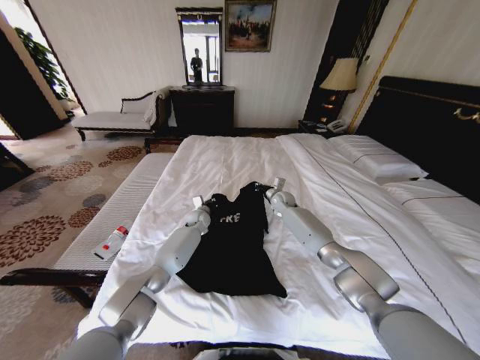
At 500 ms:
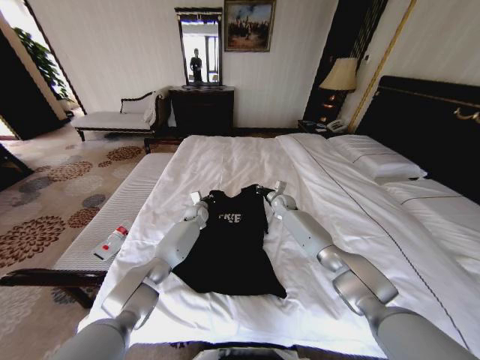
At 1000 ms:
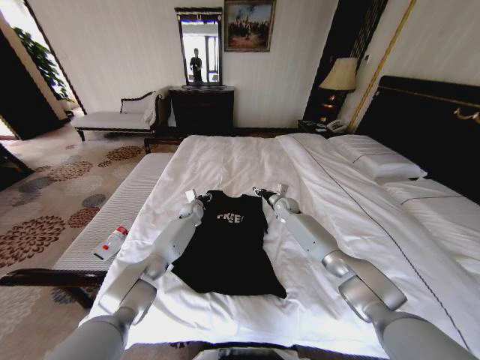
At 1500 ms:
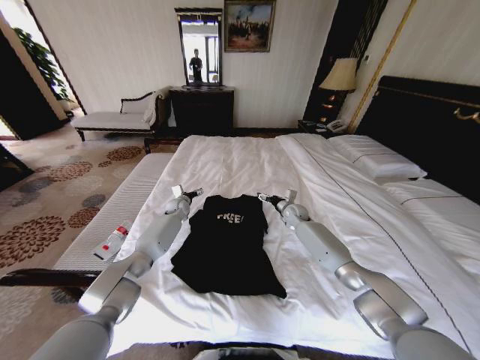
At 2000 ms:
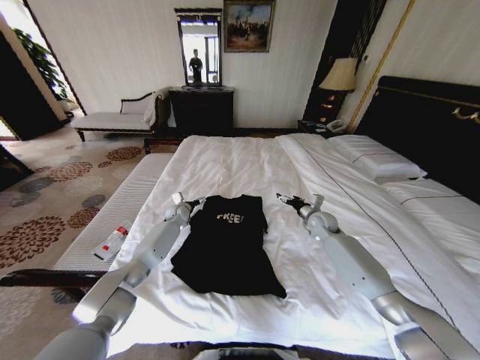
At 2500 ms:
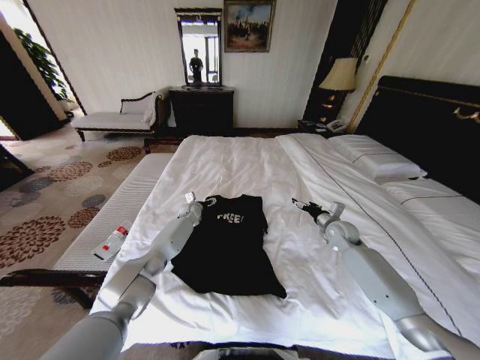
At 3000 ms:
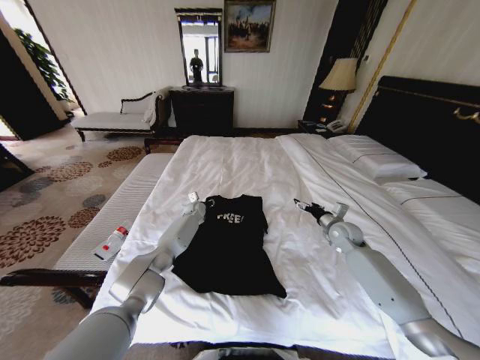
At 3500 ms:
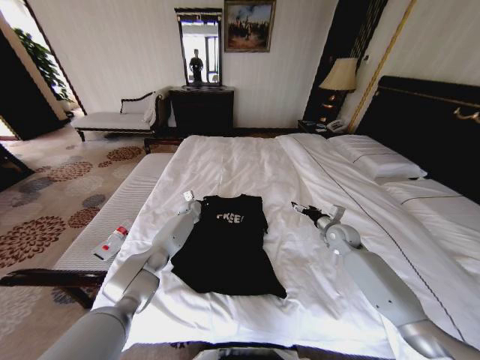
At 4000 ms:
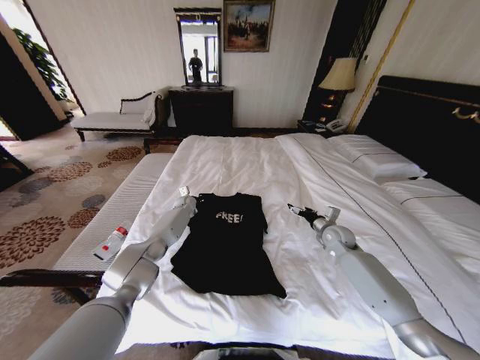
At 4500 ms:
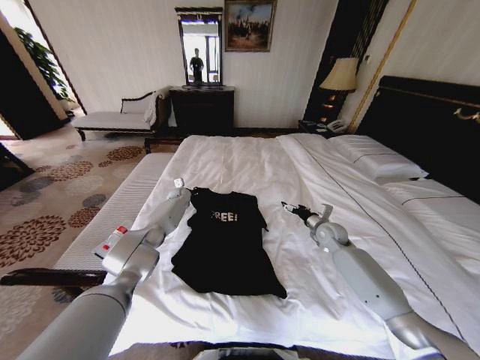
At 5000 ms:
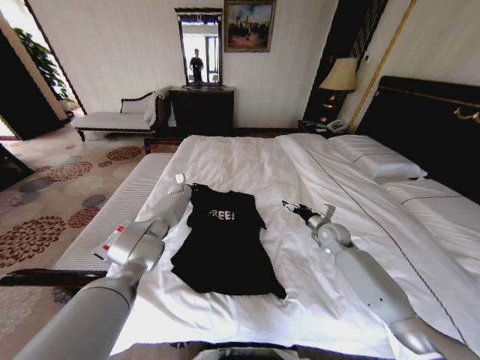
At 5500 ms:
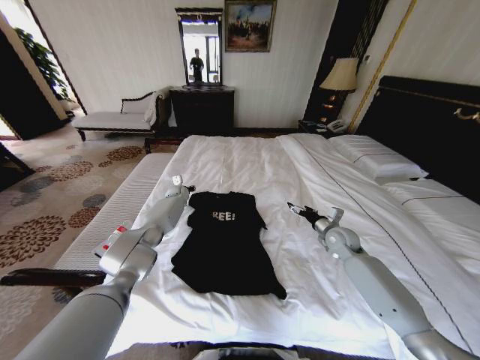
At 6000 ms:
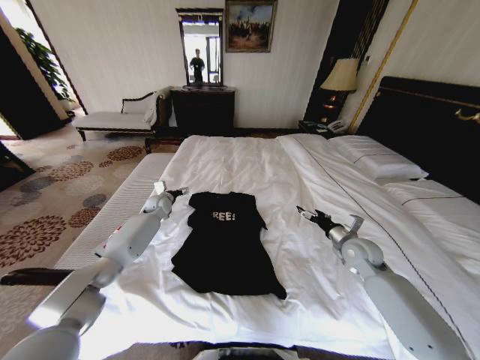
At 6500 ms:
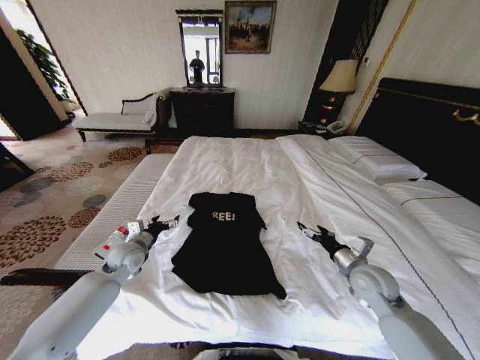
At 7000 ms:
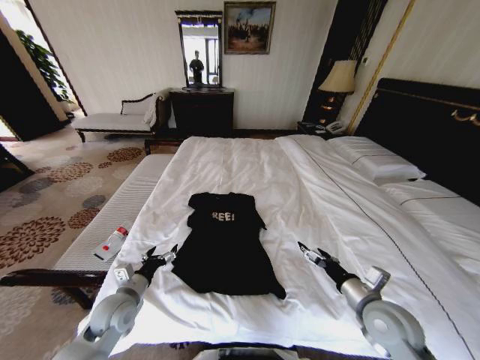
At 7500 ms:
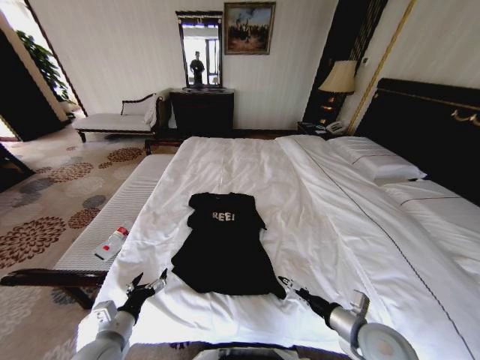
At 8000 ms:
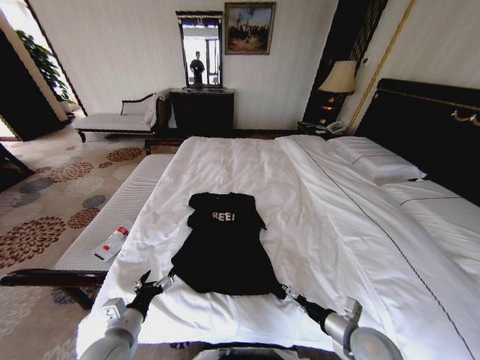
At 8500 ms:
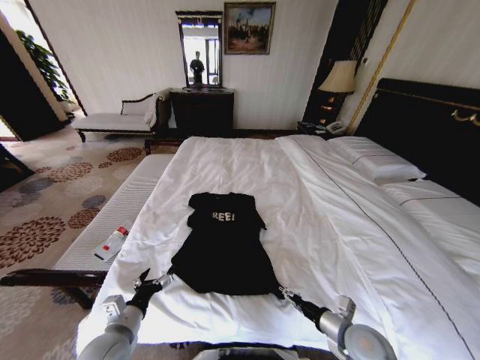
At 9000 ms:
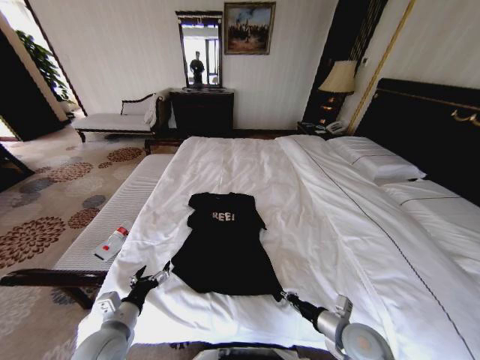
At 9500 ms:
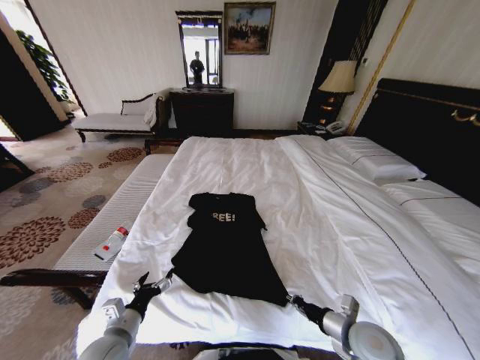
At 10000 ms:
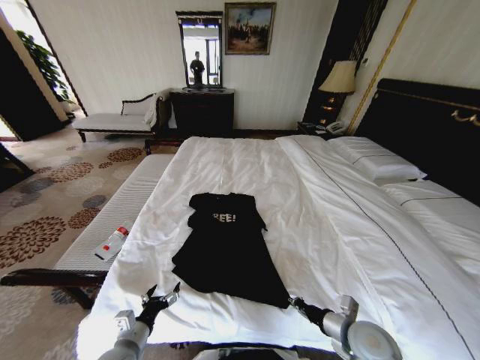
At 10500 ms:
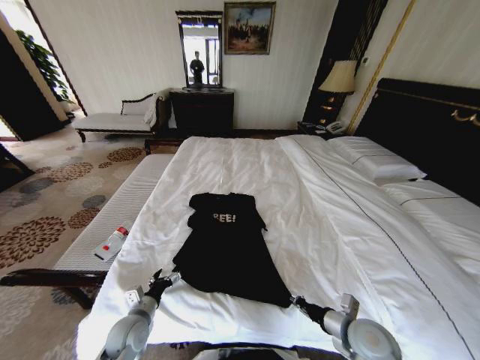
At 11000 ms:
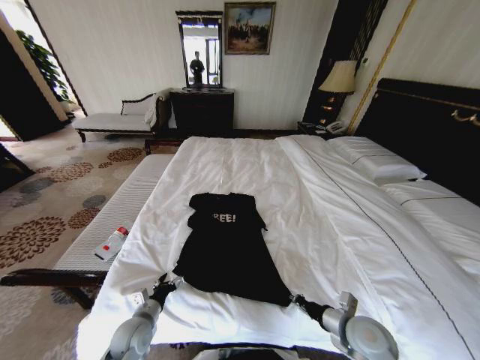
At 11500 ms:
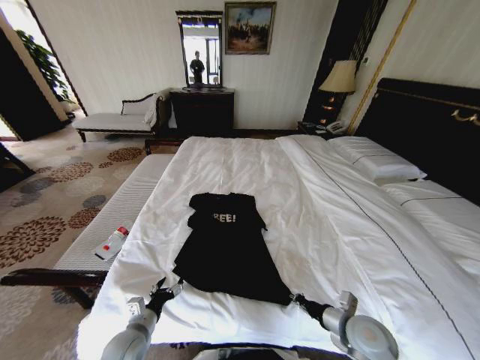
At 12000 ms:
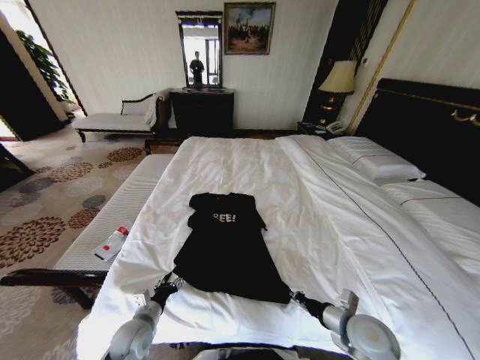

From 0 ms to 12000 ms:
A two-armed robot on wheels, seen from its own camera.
Task of the whole recording: Fold the clothes on the bed.
From 0 ms to 2000 ms: The left gripper is displaced to the left by approximately 10 cm, and opens up; the right gripper goes approximately 15 cm backward and to the right, and opens up.
From 2000 ms to 4000 ms: The left gripper goes some 5 cm forward, and closes its fingers, while the right gripper shifts by approximately 5 cm.
From 4000 ms to 6000 ms: The right gripper shifts roughly 10 cm backward. The left gripper is displaced to the left, upward and backward by about 10 cm, and opens up.
From 6000 ms to 8000 ms: The right gripper is displaced backward by some 20 cm, while the left gripper goes approximately 40 cm backward.
From 8000 ms to 10000 ms: The right gripper closes its fingers. The left gripper shifts by roughly 5 cm.
From 10000 ms to 12000 ms: The left gripper is displaced forward by roughly 5 cm, and closes up.

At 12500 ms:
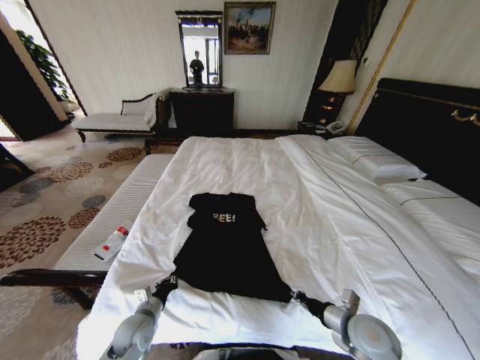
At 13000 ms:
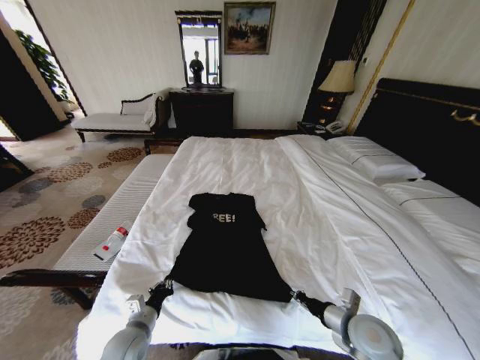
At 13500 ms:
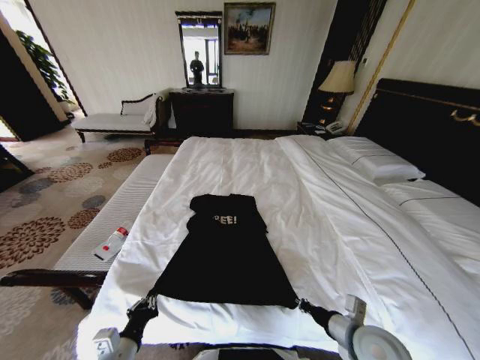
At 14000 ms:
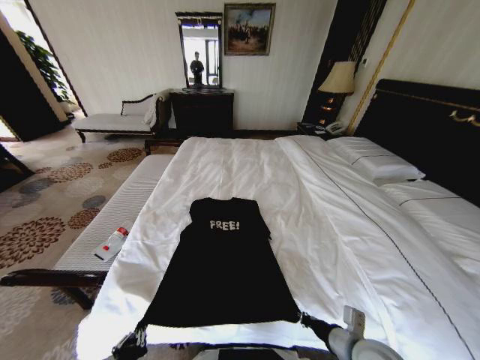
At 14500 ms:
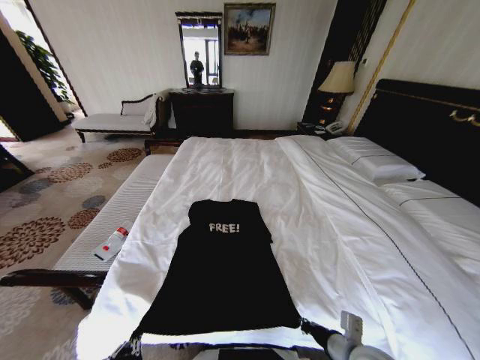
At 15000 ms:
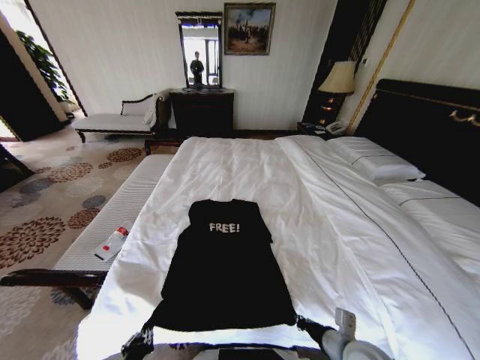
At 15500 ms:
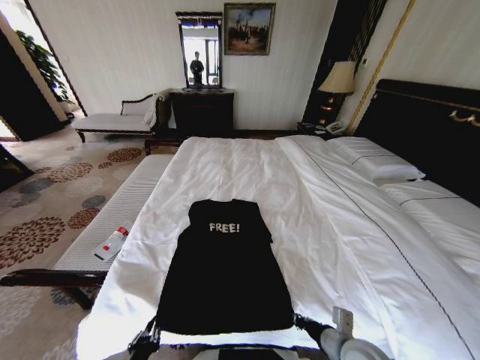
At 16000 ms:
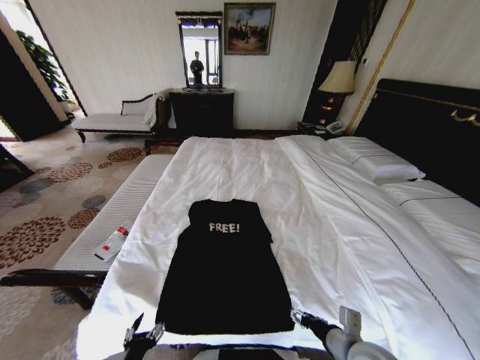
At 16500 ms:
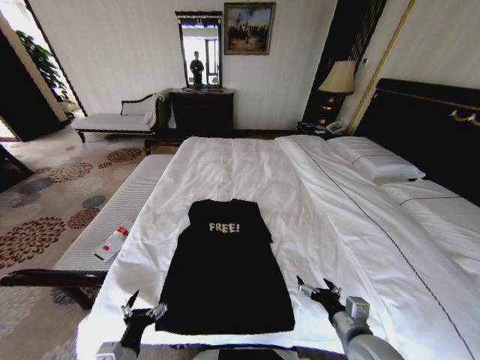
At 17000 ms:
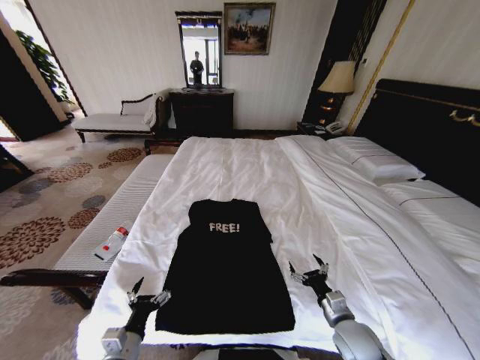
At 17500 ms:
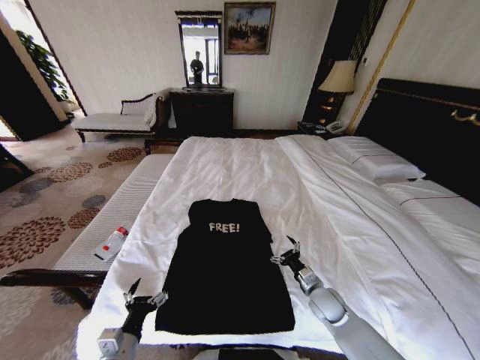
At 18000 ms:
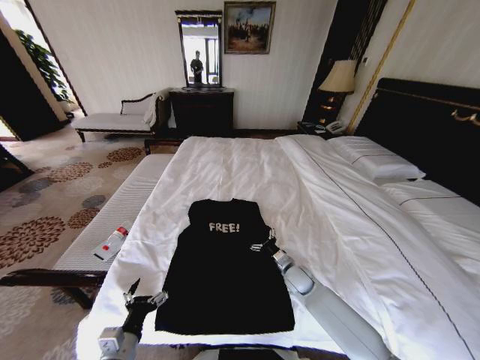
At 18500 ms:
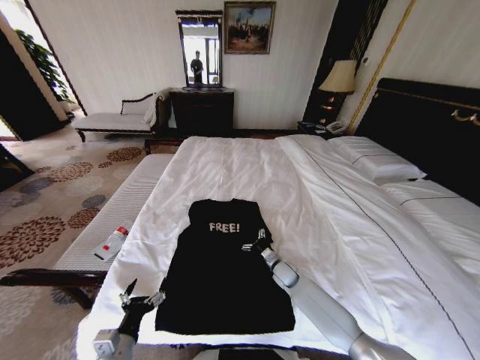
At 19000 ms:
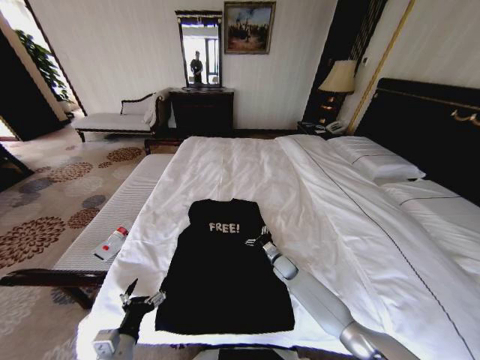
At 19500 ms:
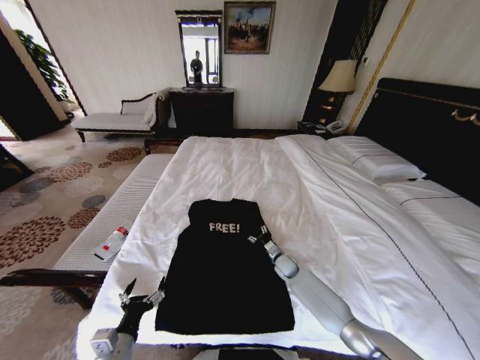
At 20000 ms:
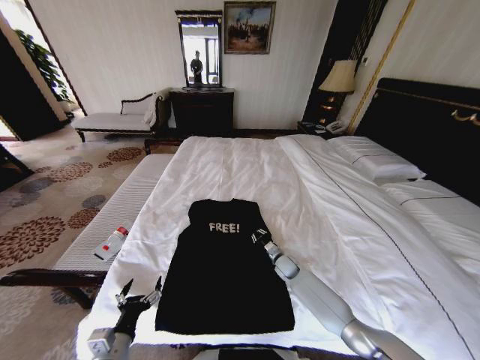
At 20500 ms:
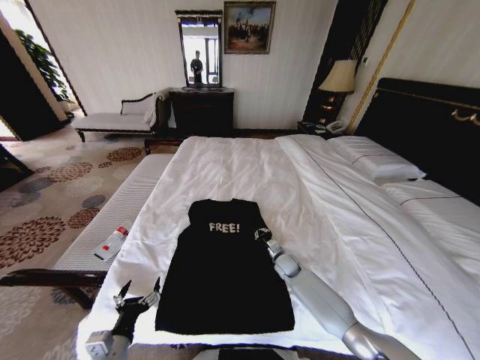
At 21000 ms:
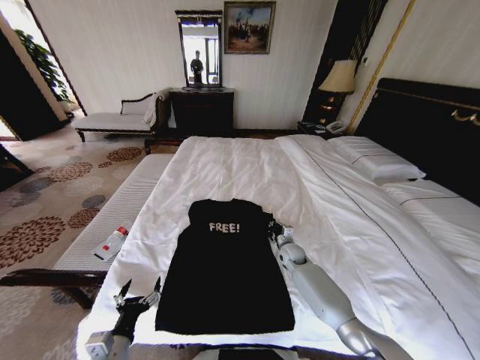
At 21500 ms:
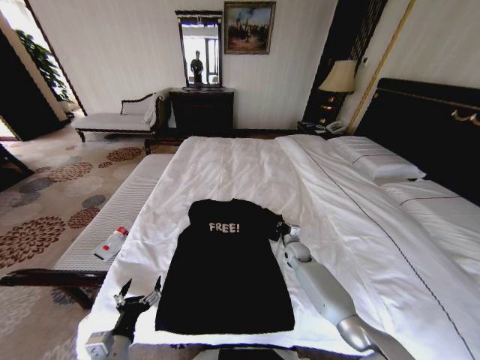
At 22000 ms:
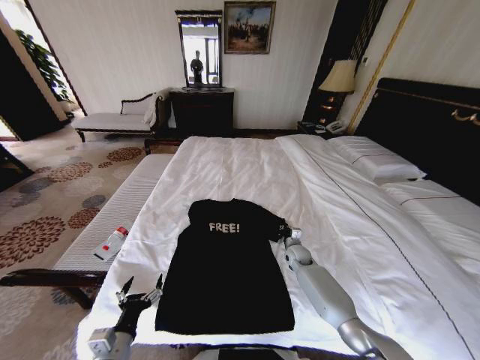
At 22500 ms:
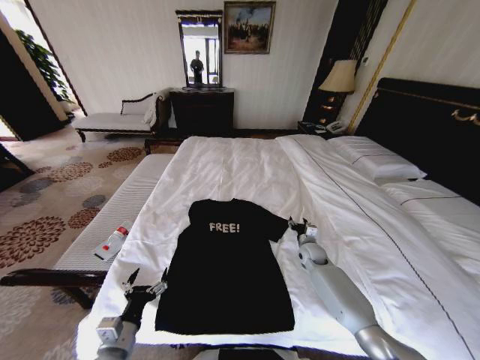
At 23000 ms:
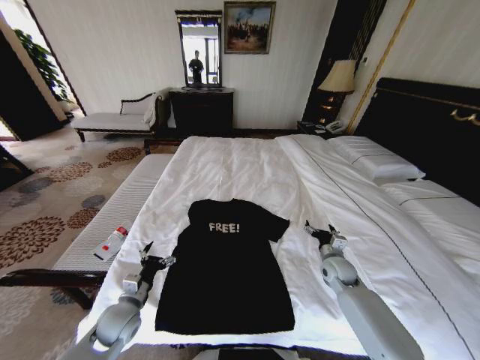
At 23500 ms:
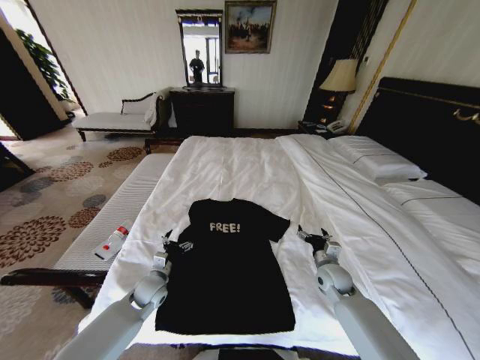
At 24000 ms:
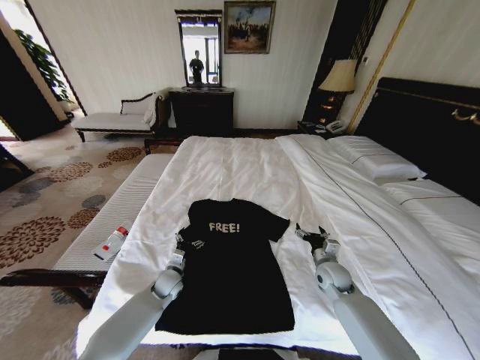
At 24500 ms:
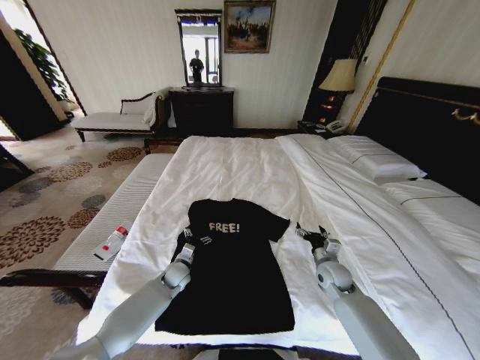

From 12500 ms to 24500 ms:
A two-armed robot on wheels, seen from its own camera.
Task of the whole recording: Fold the clothes on the bed.
From 12500 ms to 14500 ms: The right gripper heads backward, covering about 5 cm. The left gripper shifts roughly 20 cm backward.
From 14500 ms to 16500 ms: The left gripper is displaced forward by some 5 cm, and opens; the right gripper opens.
From 16500 ms to 18500 ms: The right gripper moves forward and downward, roughly 30 cm.
From 18500 ms to 20500 ms: The right gripper closes up.
From 20500 ms to 22500 ms: The right gripper travels to the right by roughly 10 cm, and opens.
From 22500 ms to 24500 ms: The left gripper is displaced forward and downward by about 30 cm, while the right gripper heads backward, covering about 10 cm, and opens.

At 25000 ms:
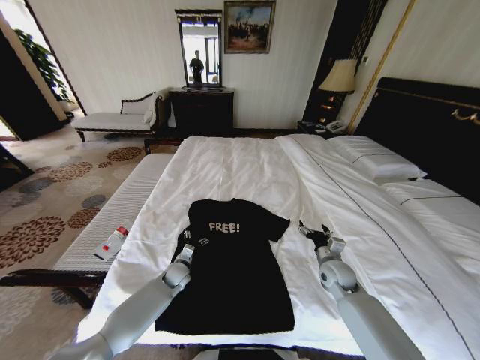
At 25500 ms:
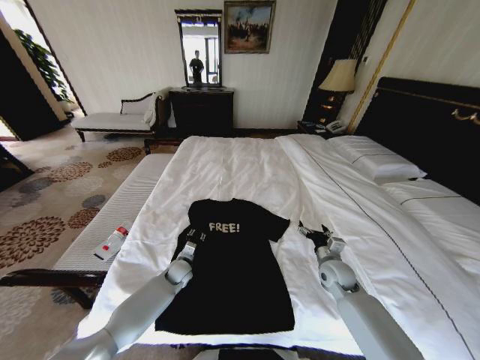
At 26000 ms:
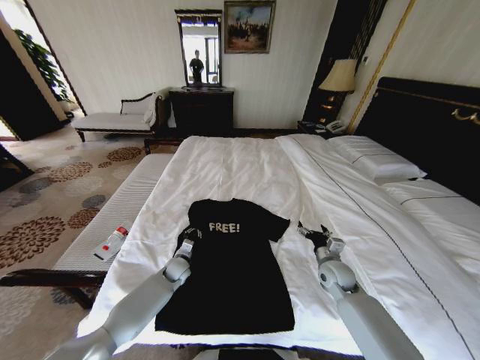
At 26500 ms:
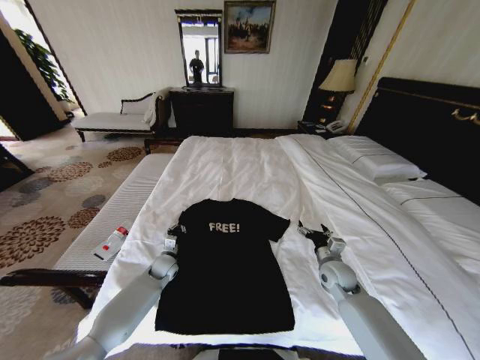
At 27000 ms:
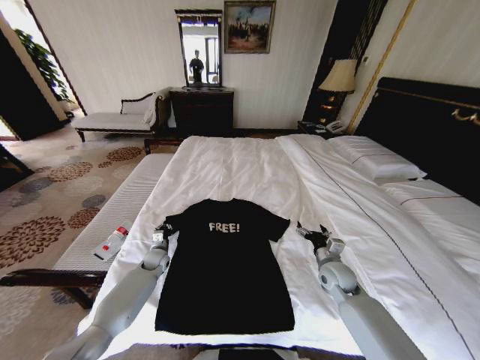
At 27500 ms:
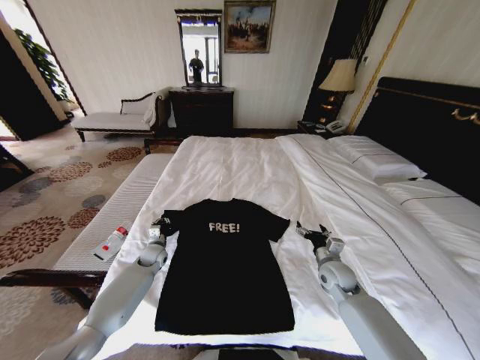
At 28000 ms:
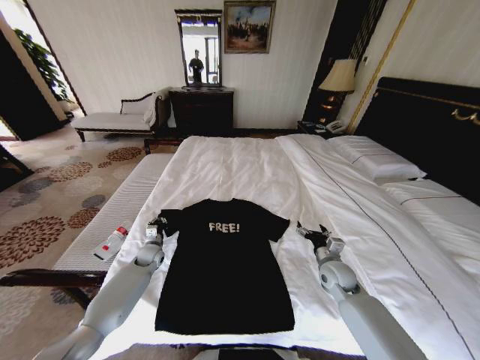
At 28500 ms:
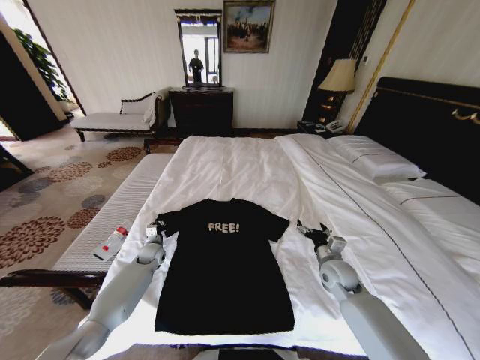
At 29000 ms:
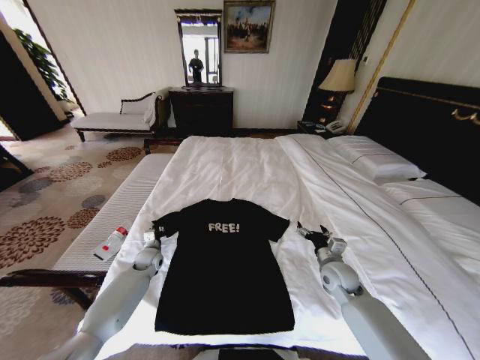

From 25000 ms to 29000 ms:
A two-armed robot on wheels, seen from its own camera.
Task of the whole recording: Fold the clothes on the bed.
From 25000 ms to 27000 ms: The left gripper moves to the left and forward, about 10 cm, and closes.
From 27000 ms to 29000 ms: The grippers stay close to where they were, moving slightly.
